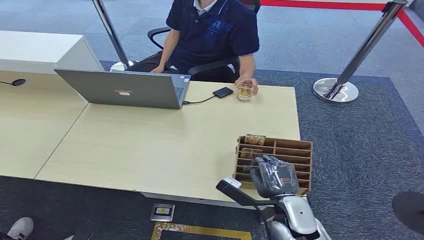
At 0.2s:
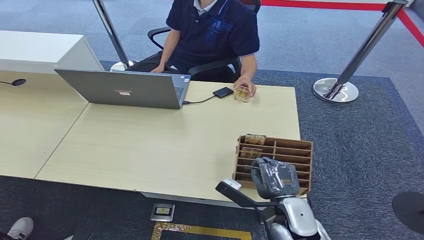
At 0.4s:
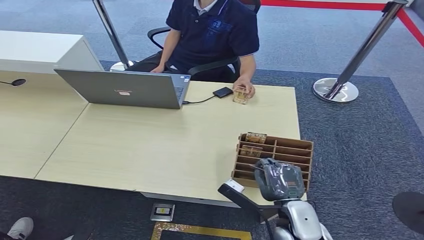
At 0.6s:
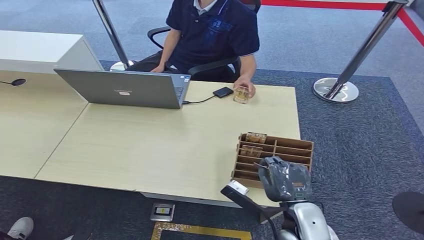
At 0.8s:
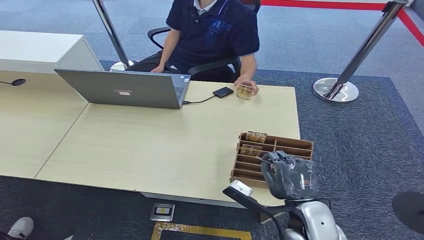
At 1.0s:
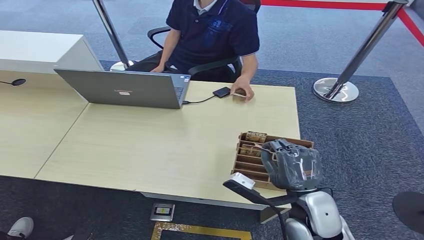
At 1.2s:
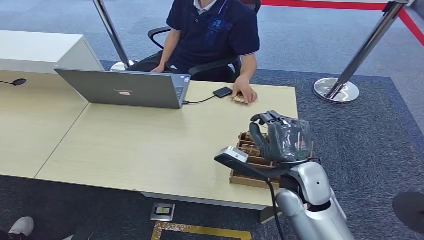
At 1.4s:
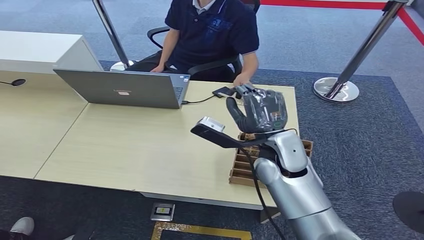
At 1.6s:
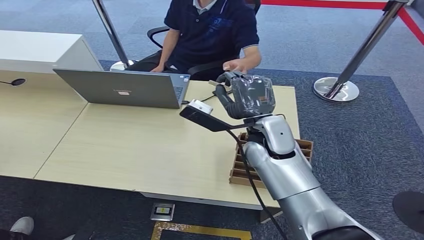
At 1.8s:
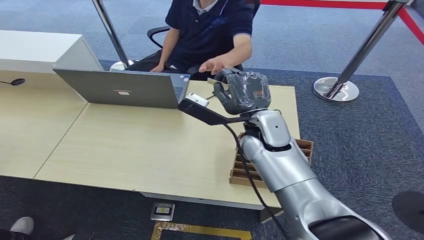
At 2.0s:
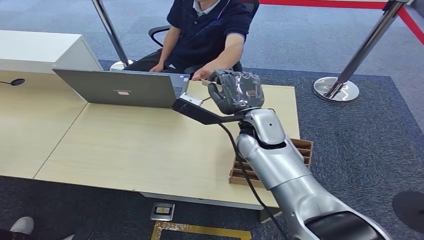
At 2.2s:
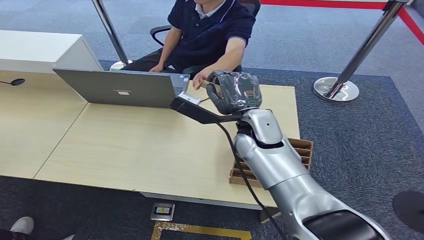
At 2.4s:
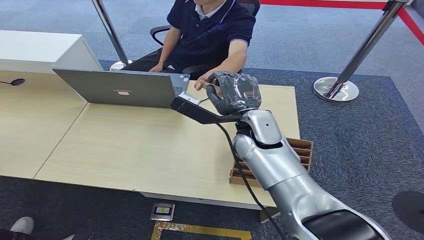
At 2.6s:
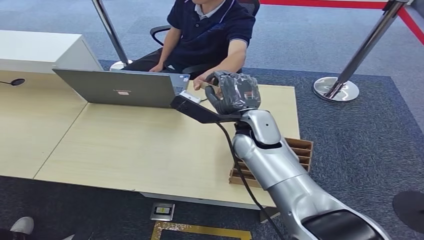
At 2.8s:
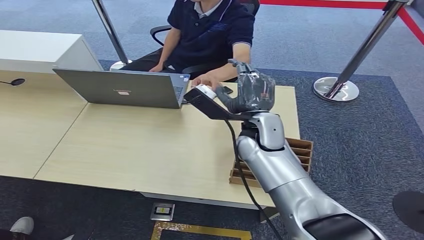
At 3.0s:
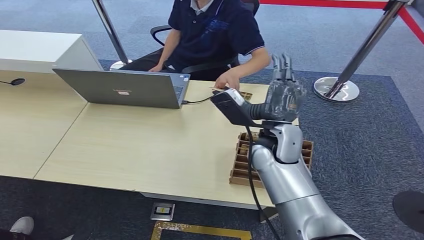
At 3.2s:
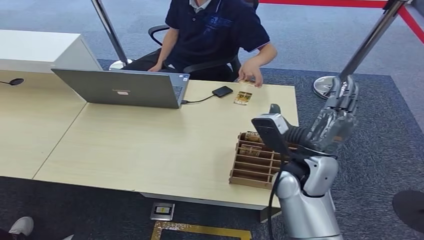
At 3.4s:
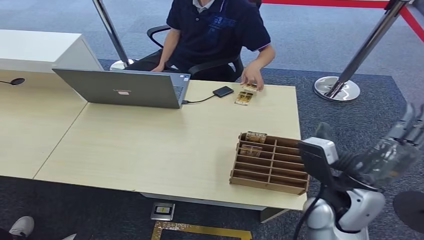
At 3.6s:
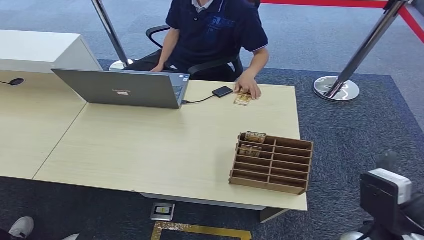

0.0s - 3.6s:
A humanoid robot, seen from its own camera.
Step, 0.0s - 1.2s: Pick up the room card from the card holder.
Step, 1.6s - 3.6s: Hand the room card to the target.
1.8s - 3.6s: The right hand travels backward and to the right by roughly 25 cm.
